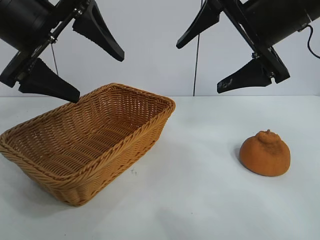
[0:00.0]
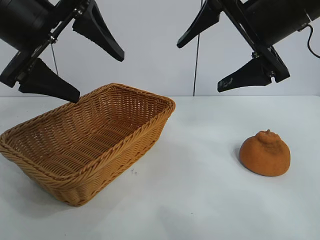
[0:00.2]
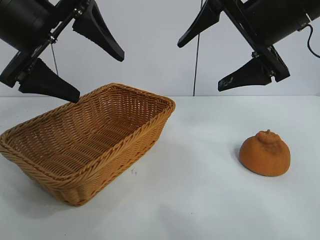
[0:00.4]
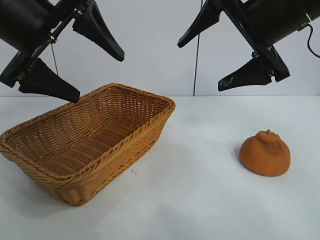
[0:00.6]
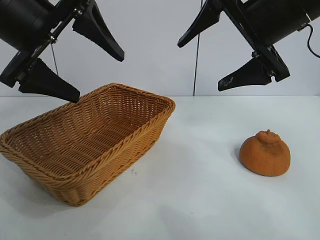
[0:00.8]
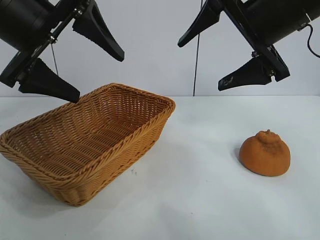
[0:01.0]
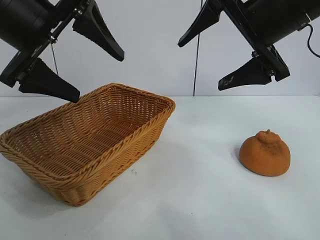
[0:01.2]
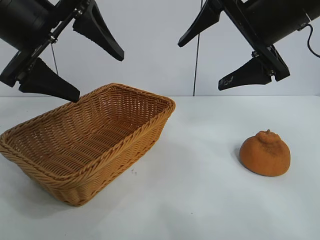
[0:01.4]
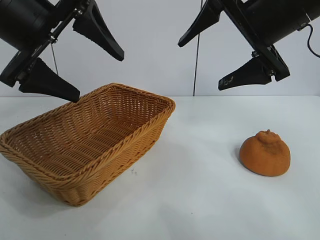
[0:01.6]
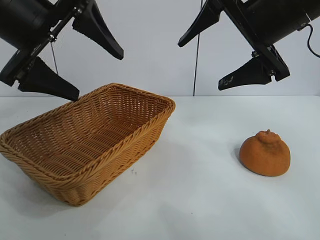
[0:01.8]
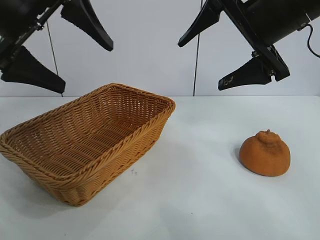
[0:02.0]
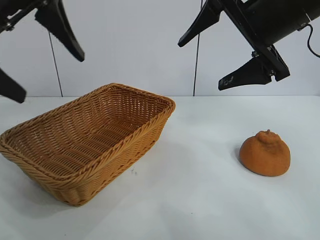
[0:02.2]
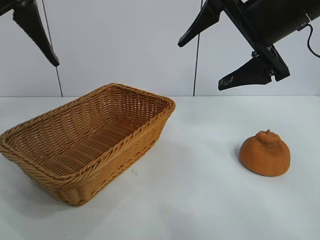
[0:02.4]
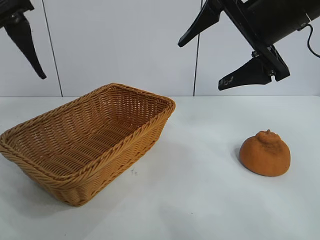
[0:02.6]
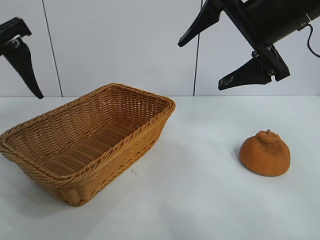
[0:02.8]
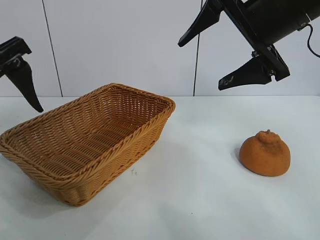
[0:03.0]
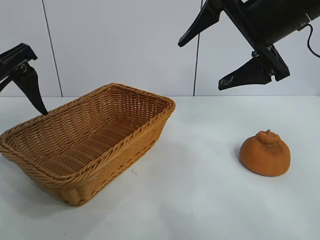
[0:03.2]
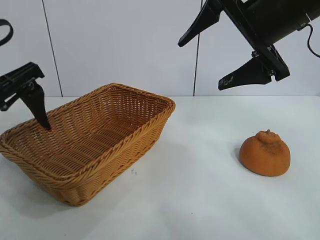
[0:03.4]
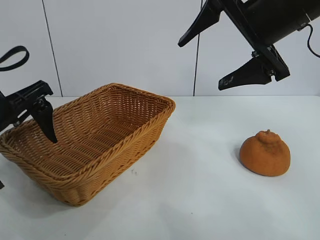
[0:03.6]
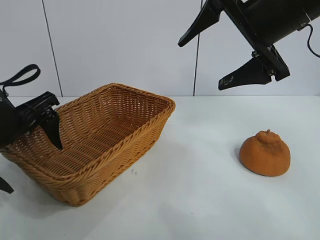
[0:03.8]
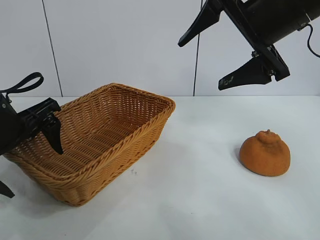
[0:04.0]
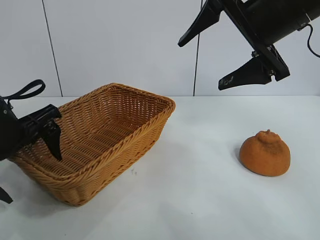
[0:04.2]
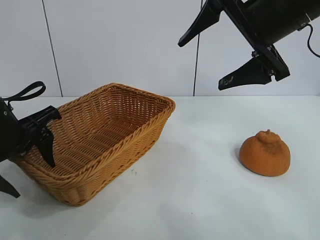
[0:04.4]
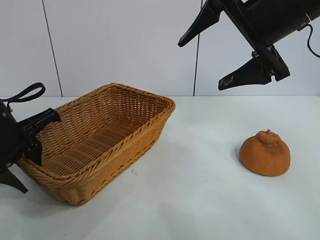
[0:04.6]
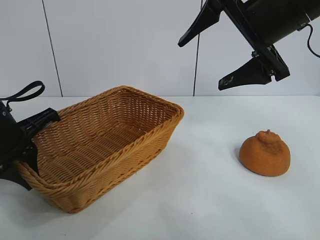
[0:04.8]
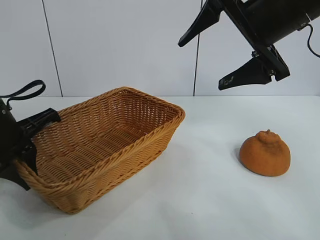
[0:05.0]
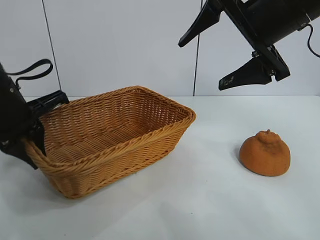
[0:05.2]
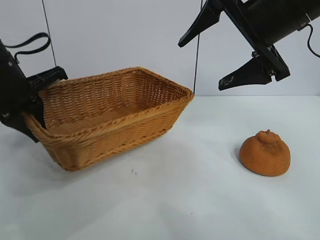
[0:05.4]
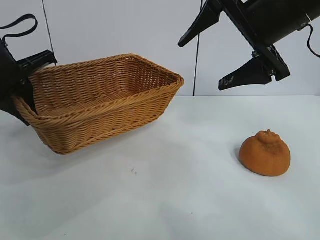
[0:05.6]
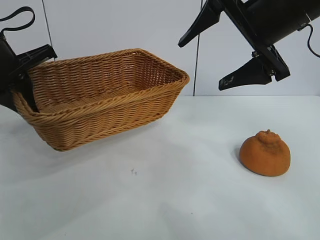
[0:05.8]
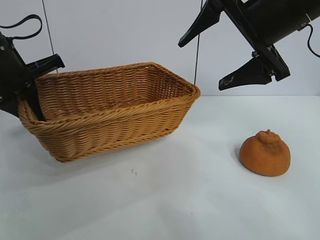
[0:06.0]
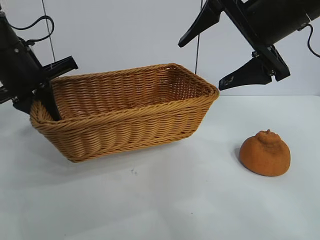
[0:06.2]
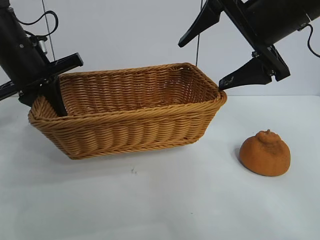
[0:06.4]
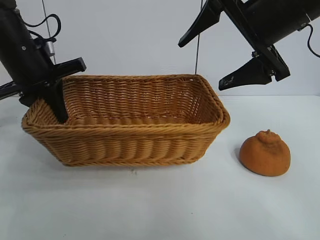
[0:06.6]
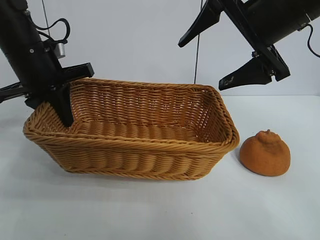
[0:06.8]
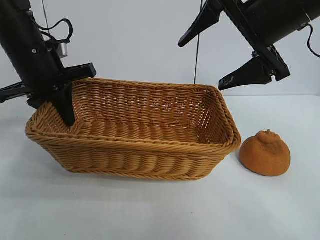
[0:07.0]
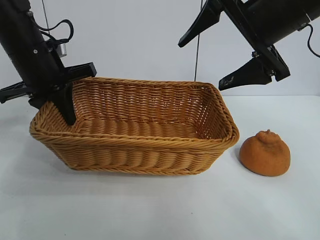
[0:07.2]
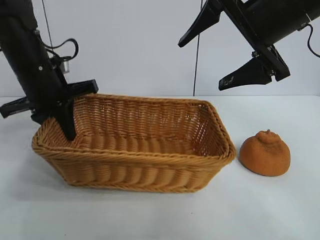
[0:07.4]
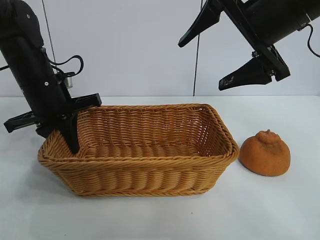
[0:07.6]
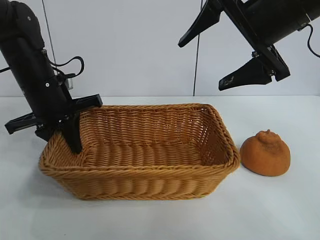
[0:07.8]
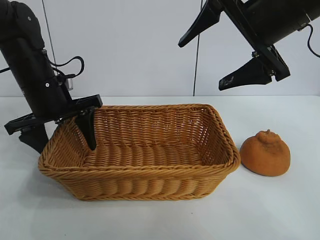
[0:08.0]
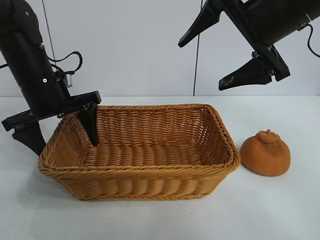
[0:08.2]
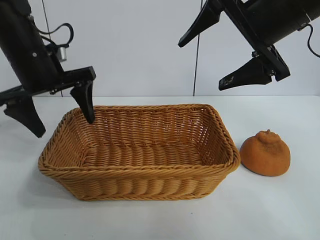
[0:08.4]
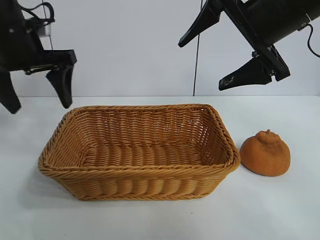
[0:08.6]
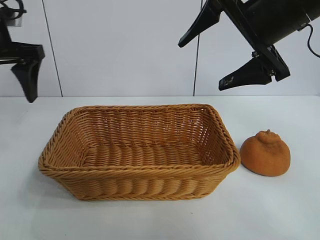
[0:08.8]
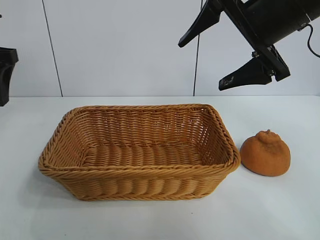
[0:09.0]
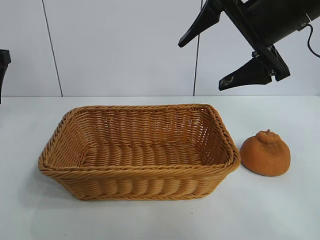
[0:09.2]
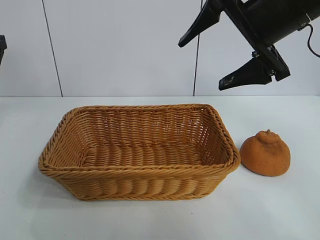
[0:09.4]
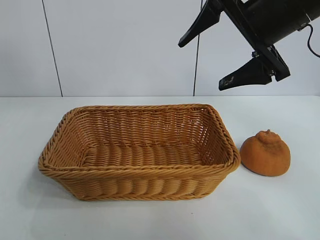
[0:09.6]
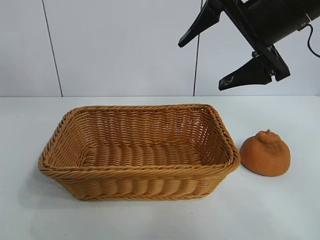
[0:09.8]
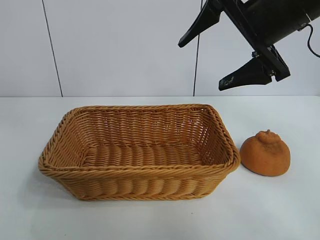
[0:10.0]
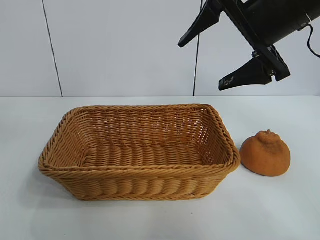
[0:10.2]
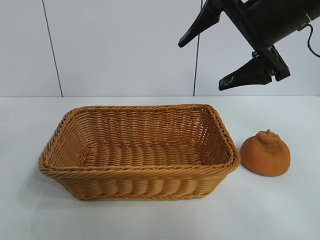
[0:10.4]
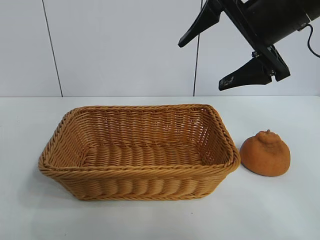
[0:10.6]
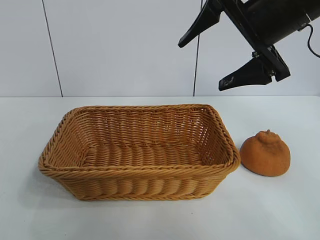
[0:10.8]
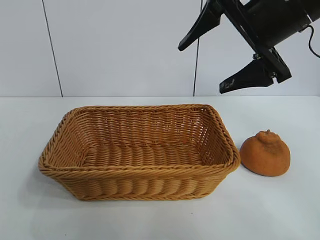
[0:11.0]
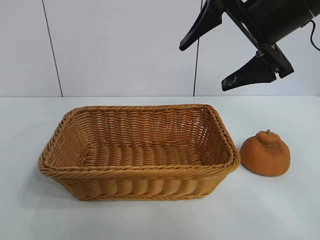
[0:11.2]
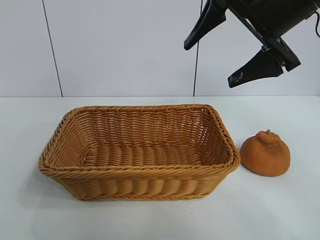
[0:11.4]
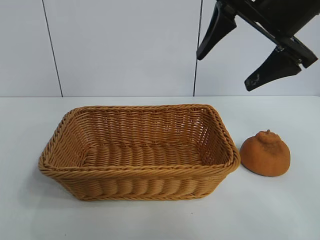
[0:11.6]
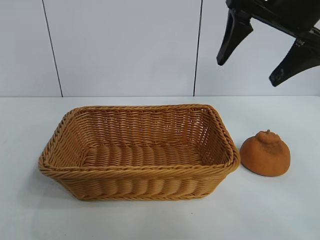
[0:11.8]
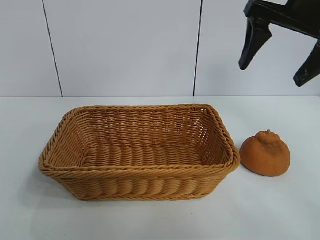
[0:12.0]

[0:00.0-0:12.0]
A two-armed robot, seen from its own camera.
Task of the whole recording: pick up the orange and put it into the basket.
Step, 0:01.8 to 0:04.8: Grasp the basket with left gripper.
Step, 0:05.2 to 0:08.6: Place the basket in the center of view with left gripper.

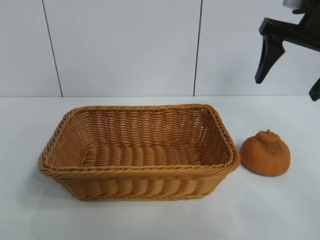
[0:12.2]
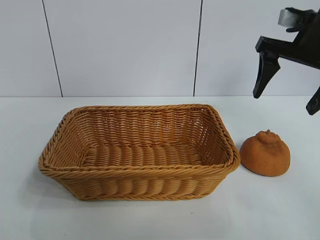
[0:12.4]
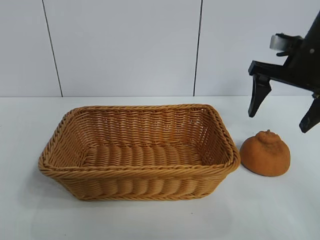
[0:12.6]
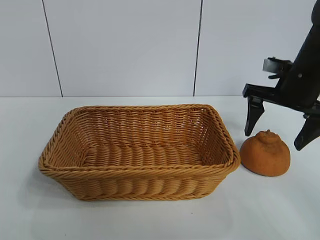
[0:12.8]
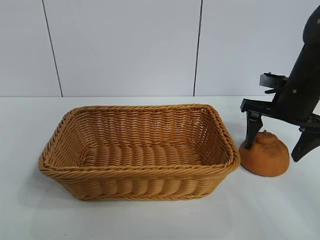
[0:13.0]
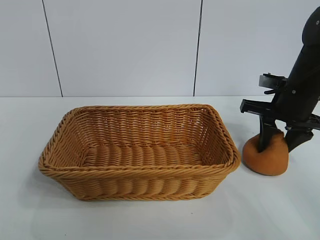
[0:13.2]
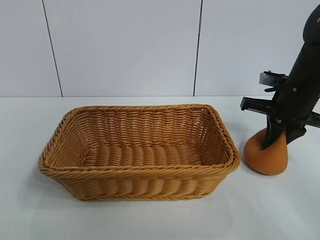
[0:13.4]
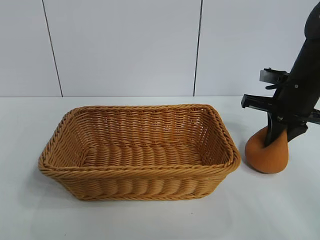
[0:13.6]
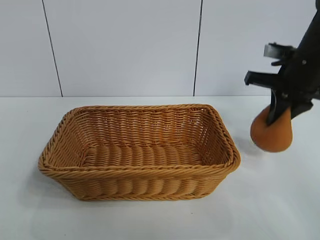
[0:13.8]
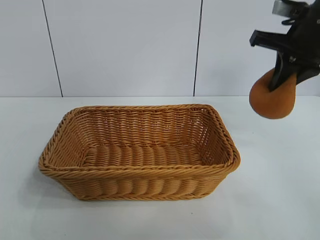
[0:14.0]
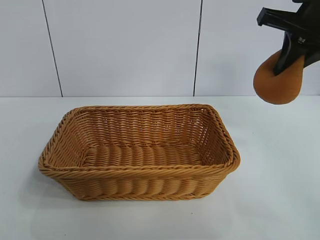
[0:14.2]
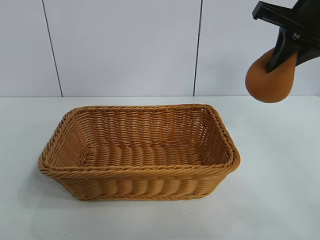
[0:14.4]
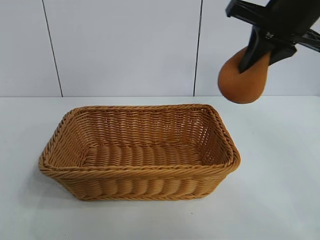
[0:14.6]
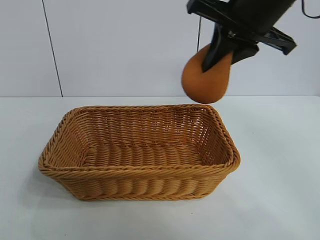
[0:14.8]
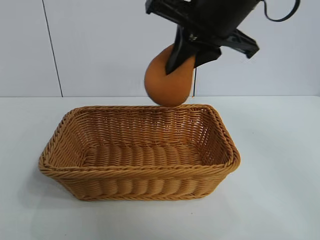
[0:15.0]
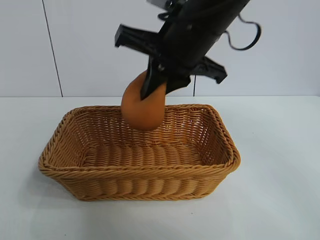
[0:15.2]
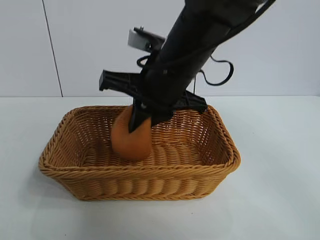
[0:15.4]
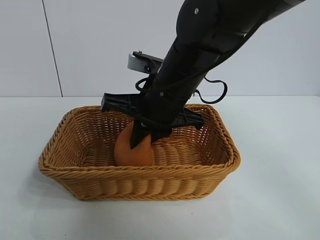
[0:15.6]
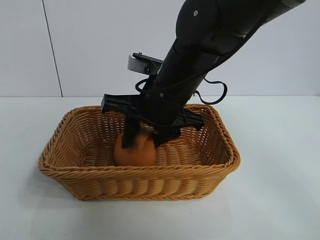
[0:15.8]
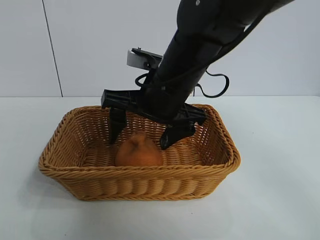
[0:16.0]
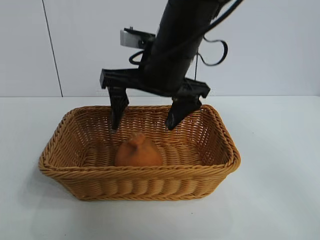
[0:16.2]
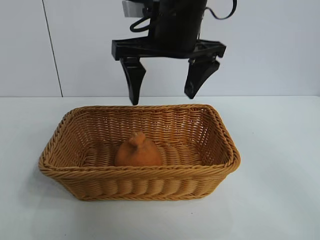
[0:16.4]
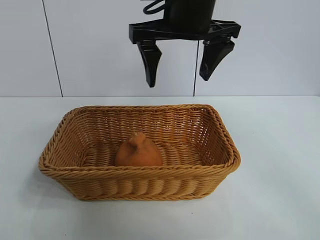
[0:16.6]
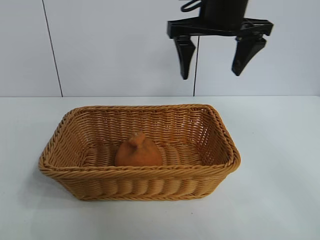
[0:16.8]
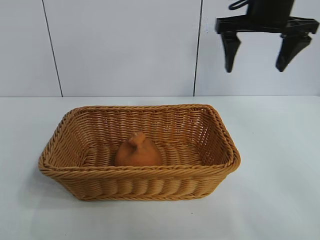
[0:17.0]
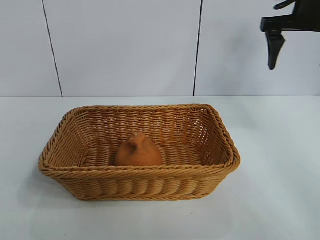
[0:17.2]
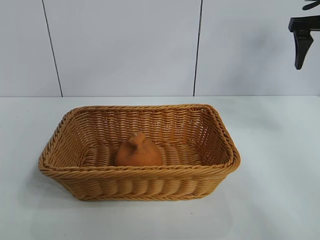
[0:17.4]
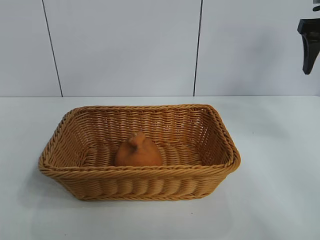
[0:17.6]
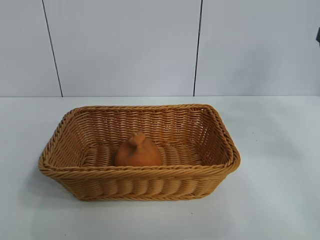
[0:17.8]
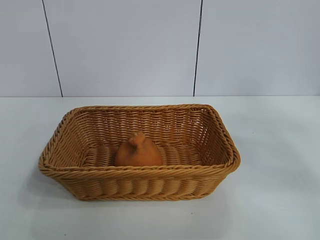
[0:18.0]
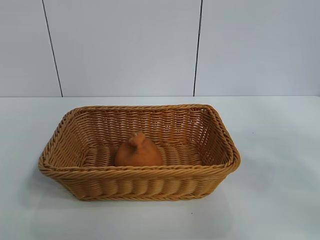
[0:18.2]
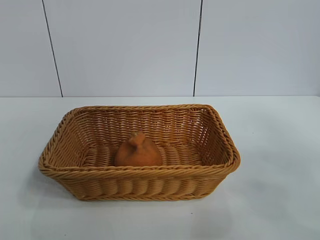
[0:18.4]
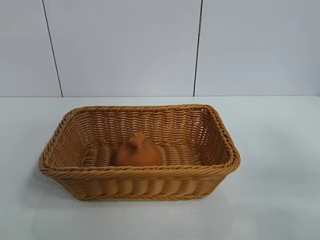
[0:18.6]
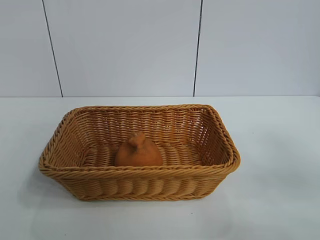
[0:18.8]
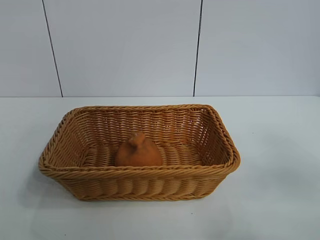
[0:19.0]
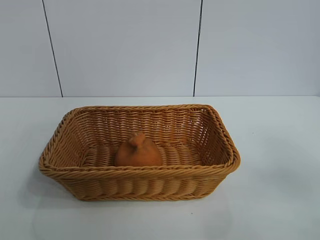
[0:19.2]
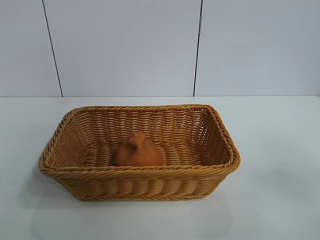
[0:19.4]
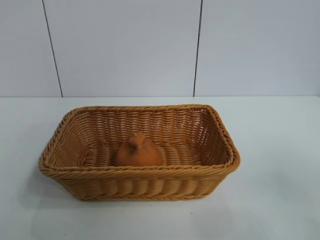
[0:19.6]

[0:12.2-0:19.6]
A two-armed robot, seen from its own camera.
Task of the whole recording: pick up the orange and put it into the basket.
Step, 0:13.4 to 0:16.2: Place the orange in the basket with right gripper.
